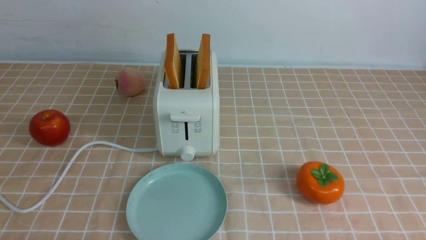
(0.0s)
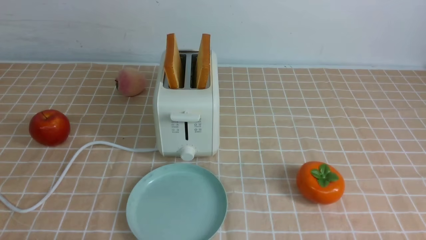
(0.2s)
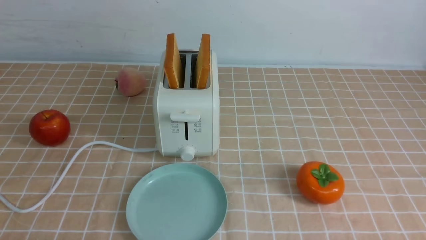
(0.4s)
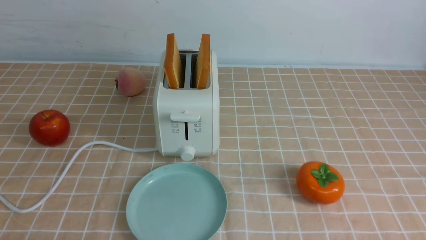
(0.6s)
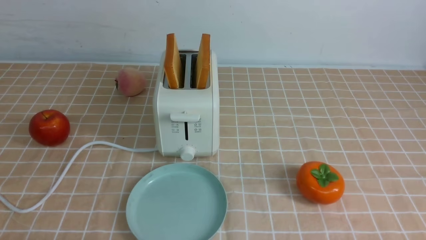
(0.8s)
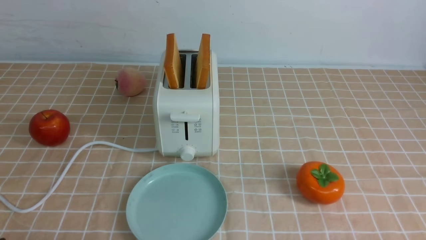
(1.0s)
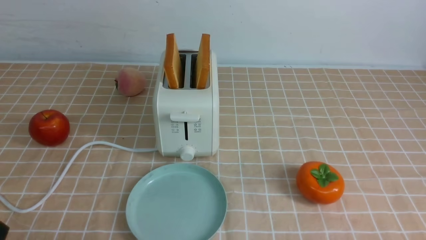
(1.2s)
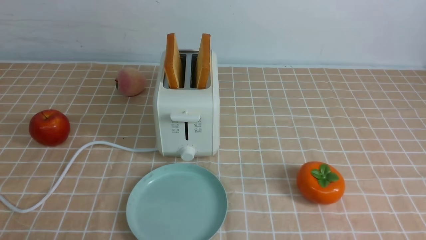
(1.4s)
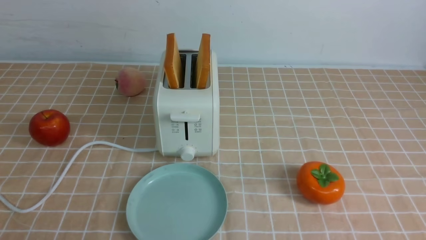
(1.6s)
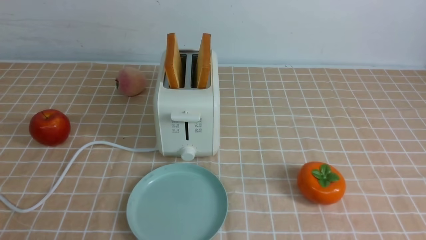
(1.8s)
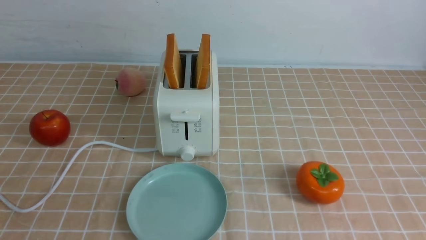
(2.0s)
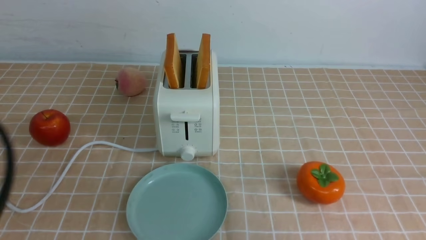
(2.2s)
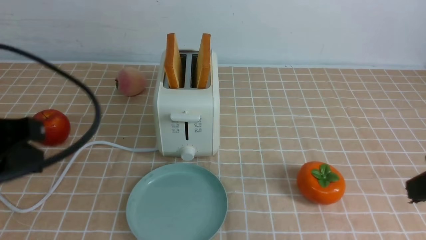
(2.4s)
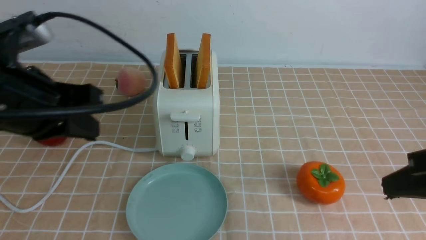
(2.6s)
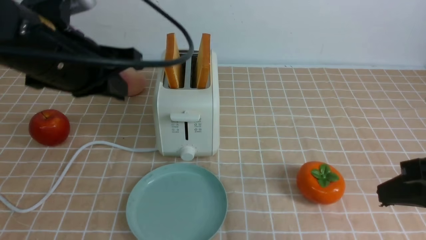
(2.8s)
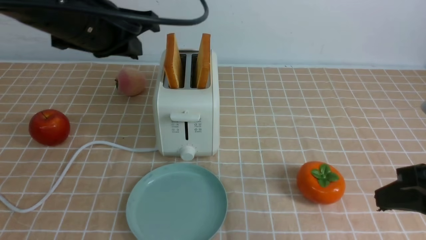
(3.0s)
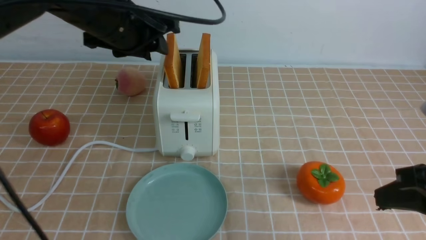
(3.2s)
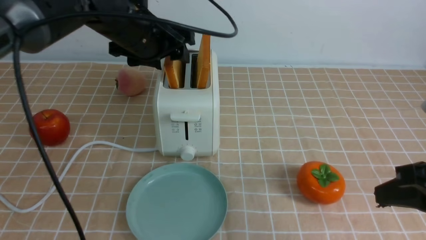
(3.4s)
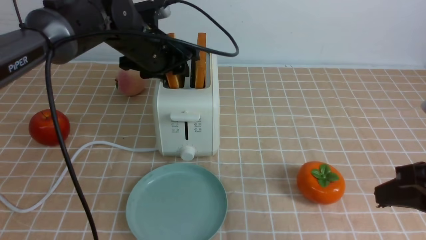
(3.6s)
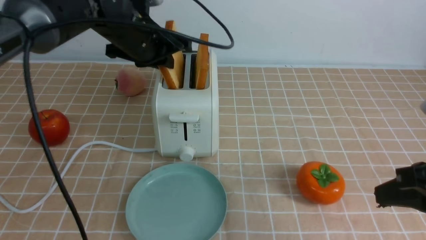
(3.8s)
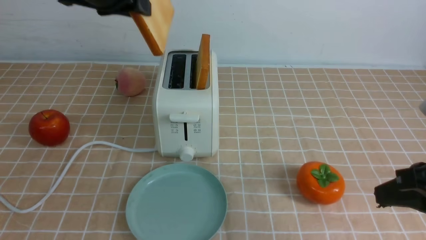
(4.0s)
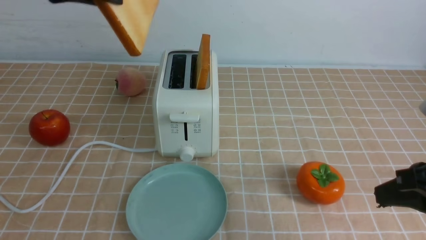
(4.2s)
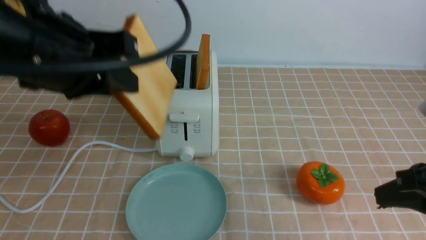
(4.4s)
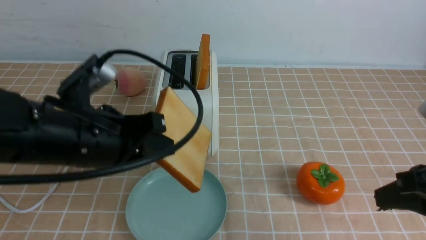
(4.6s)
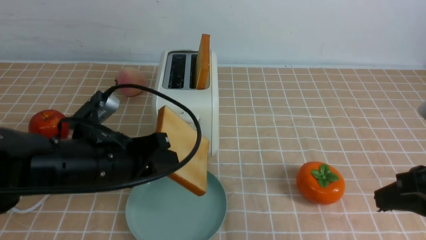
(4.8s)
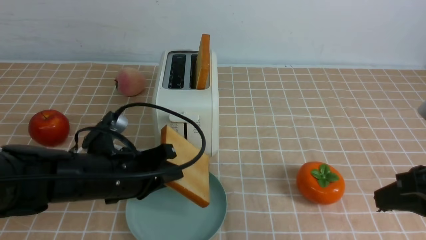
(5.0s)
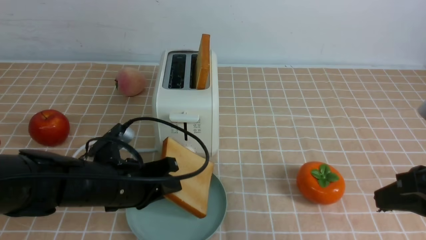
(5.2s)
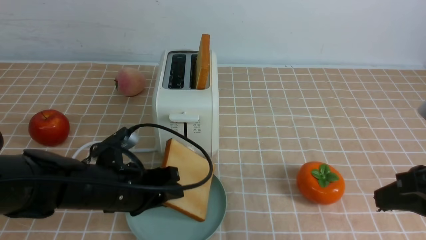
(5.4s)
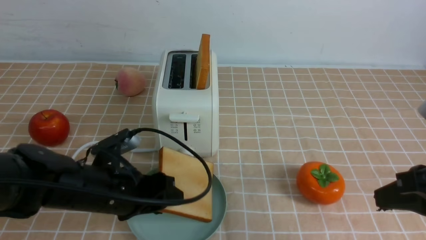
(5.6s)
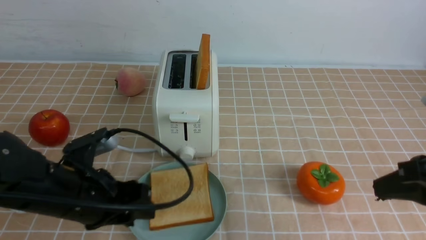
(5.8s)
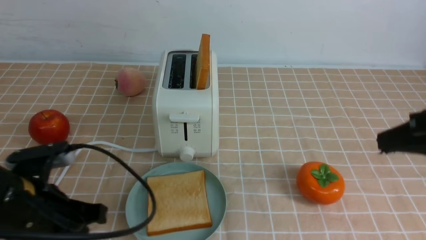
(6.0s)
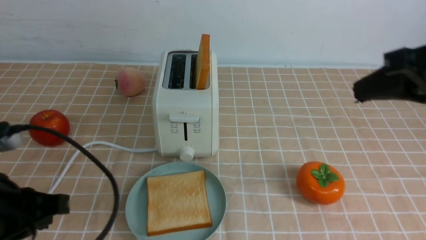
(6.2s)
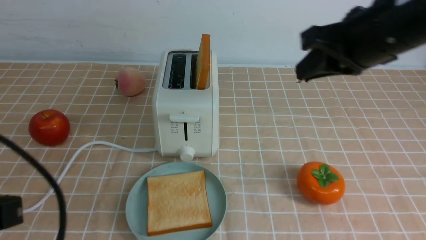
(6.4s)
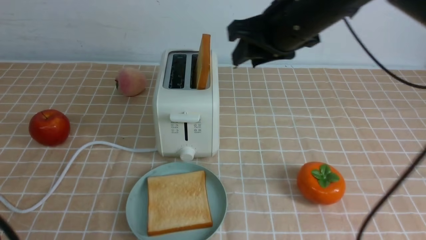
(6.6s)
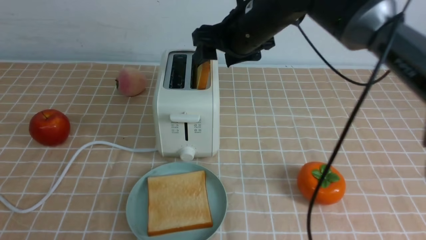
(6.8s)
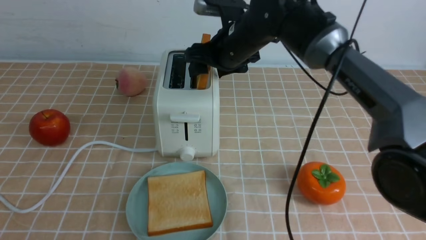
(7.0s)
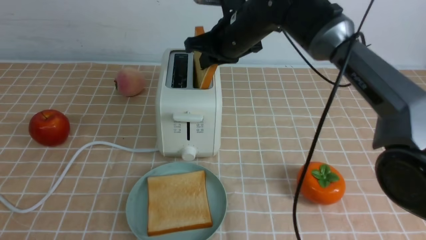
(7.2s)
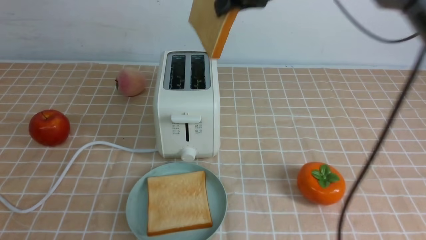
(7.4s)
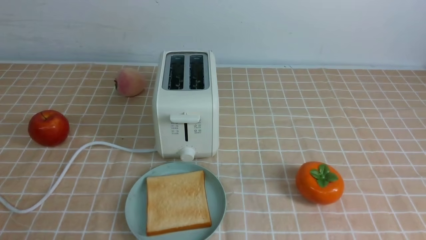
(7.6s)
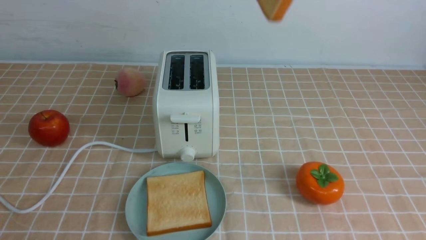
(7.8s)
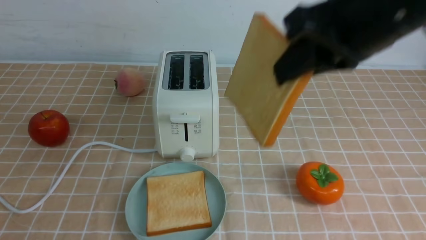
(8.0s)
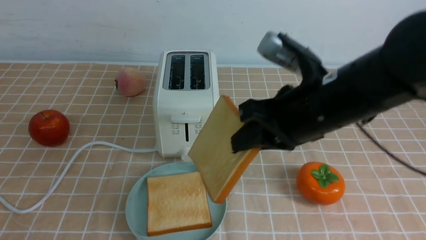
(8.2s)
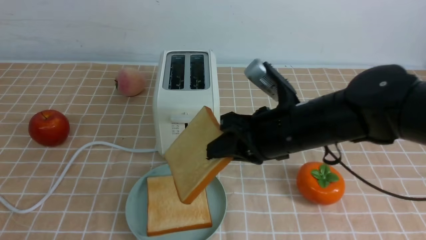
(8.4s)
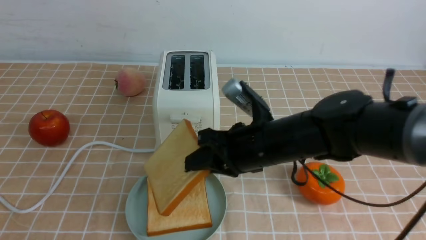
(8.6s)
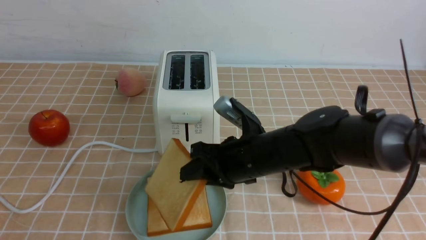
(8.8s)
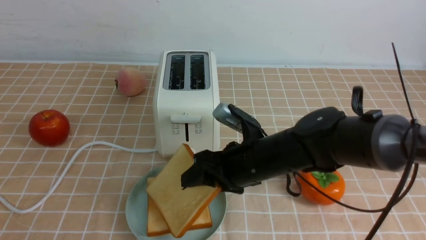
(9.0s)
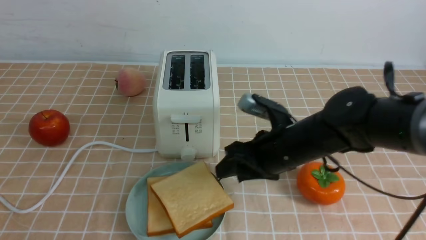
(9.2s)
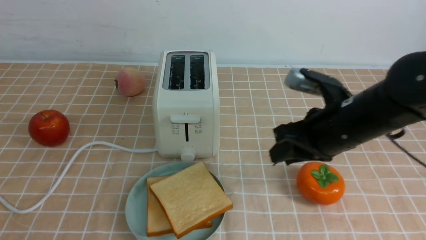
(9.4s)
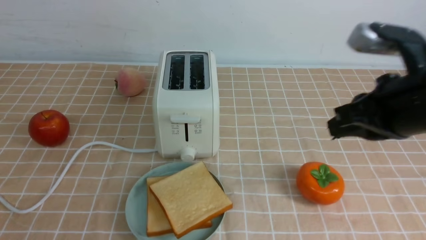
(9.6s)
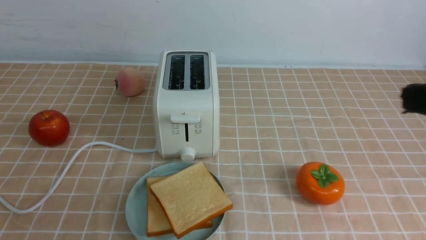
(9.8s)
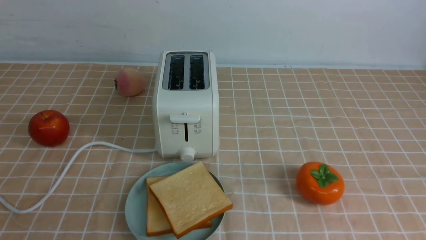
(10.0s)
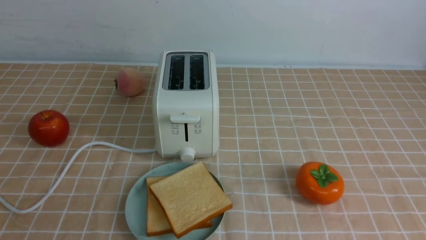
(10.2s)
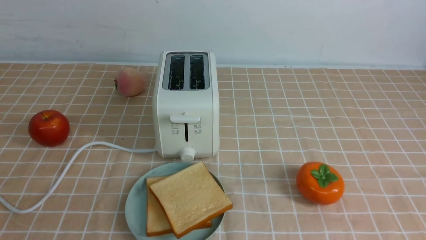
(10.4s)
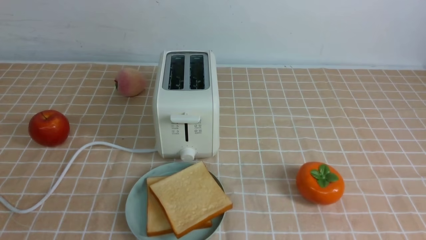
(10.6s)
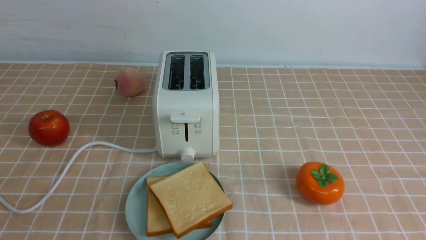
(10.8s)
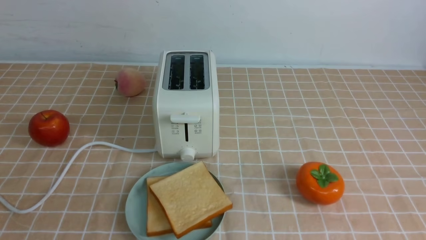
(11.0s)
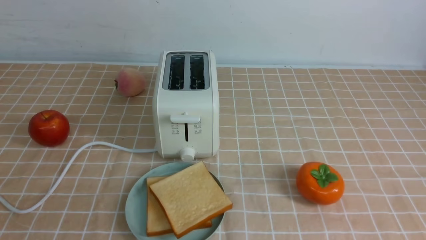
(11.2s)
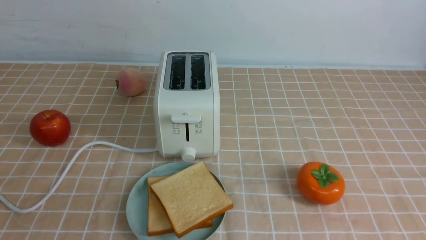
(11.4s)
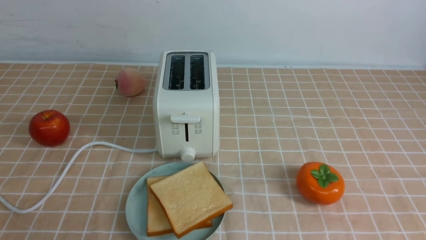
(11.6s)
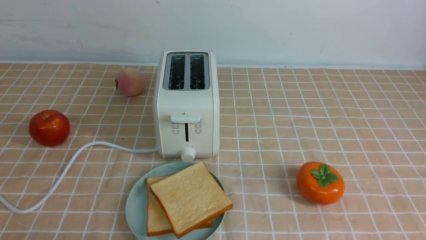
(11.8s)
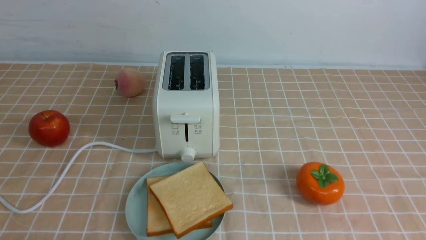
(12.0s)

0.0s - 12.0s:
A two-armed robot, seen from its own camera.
Task of the whole recording: take toasted bread from bread machine on light coffee tablecloth place on plate.
Step, 0.0s - 3.8s: use the left arm to take out a slice of bread.
Step, 4.0s - 5.8s: use the left arm to put a slice of bread into the empty plate.
Step, 6.0s - 7.2s: use the right arm to take out a slice of bread.
Step, 7.4s - 9.2s: use the right arm to put a slice of bread into the plate.
1.6s - 3.0s: The left gripper moves forward, upward and to the right, some 30 cm, and closes, while the right gripper goes roughly 15 cm forward, upward and to the left, and closes.
3.0s - 4.4s: The left gripper moves some 10 cm forward and comes back, and opens and closes again.
4.4s - 6.0s: The left gripper shifts roughly 20 cm downward, and opens up.
6.0s - 7.6s: The right gripper heads forward, to the left and upward, covering roughly 25 cm, and opens and closes again, while the left gripper shifts roughly 20 cm backward and upward, and closes.
7.6s - 9.0s: The right gripper shifts roughly 30 cm downward, and opens up.
9.0s - 10.4s: The right gripper goes about 35 cm backward, to the right and upward, and closes up.

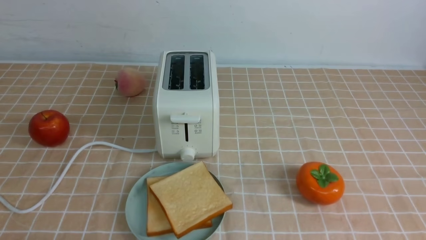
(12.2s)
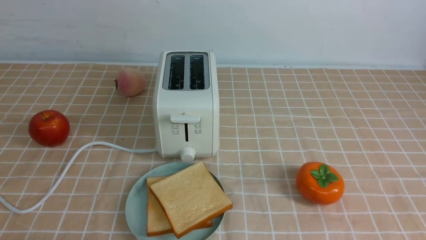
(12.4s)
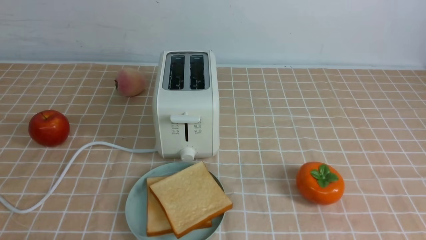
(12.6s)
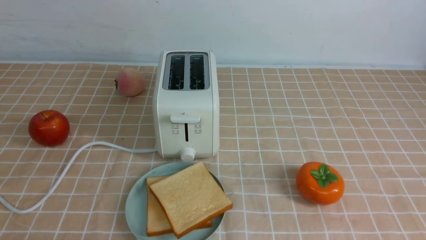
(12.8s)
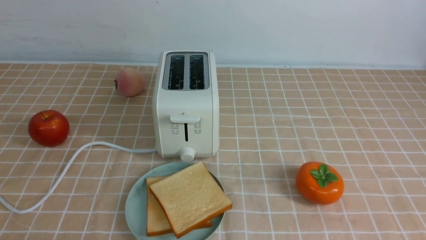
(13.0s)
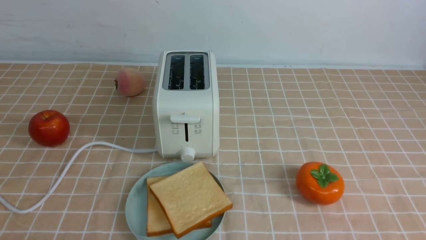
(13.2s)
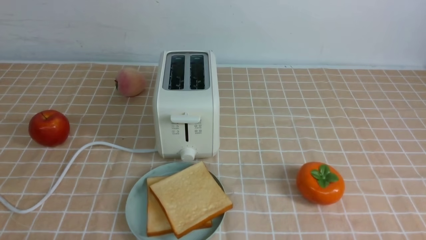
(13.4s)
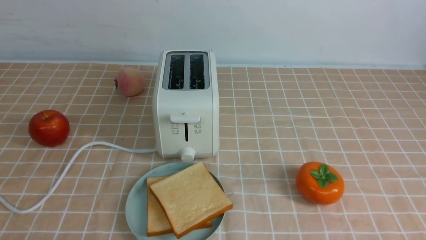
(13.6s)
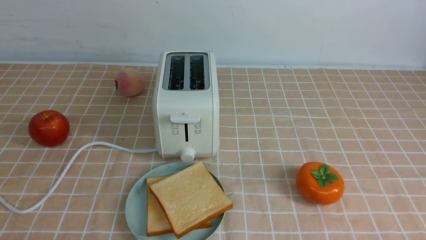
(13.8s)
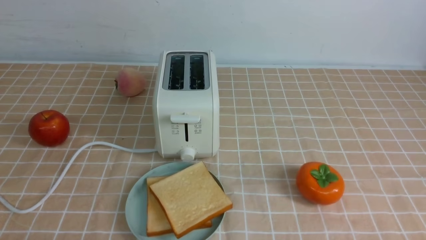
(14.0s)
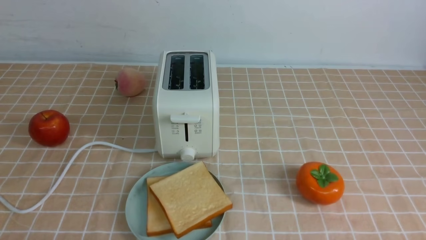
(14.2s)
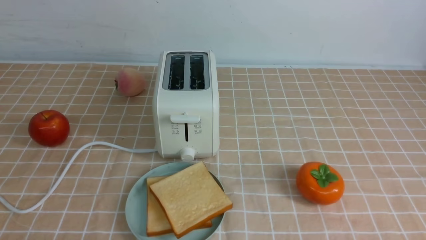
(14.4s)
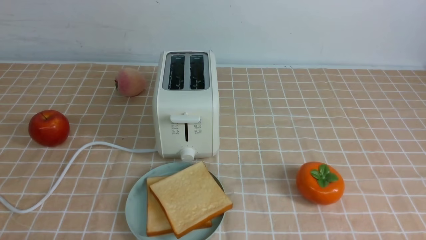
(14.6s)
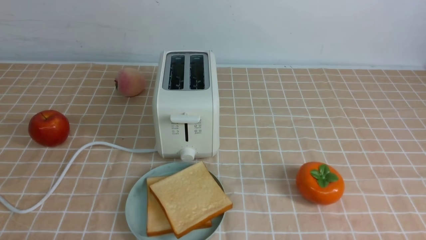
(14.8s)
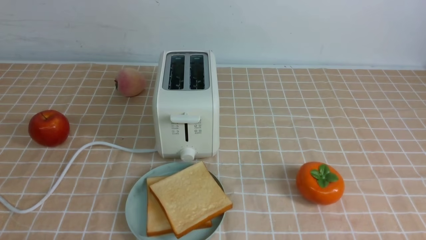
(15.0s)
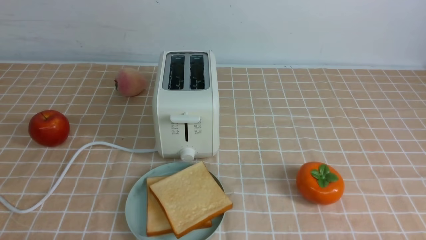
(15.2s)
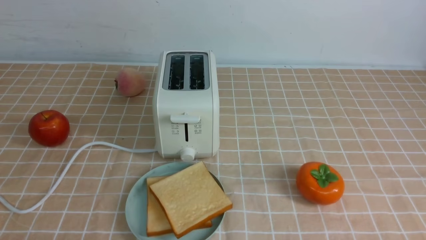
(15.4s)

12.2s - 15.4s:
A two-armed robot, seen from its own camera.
Task of the whole recording: take toasted bread from bread machine on light coffee tablecloth place on plate.
13.8s - 15.4s: The two grippers keep their place.

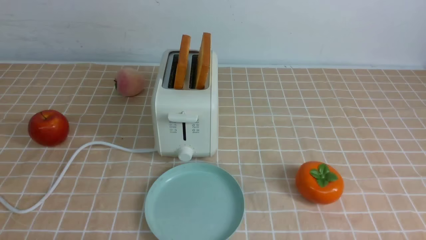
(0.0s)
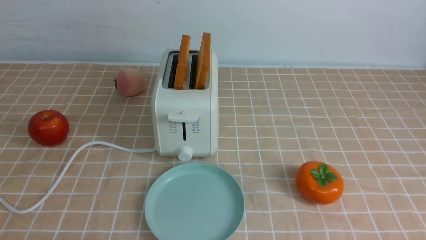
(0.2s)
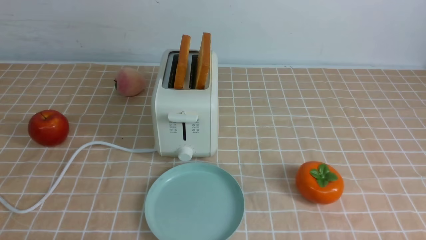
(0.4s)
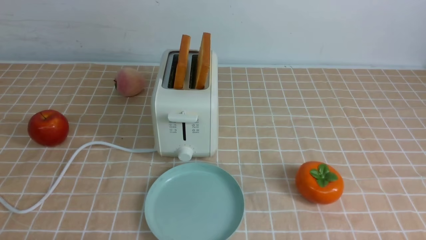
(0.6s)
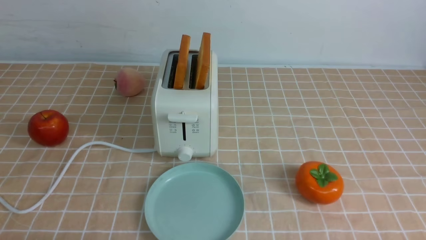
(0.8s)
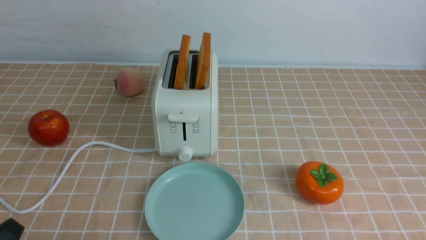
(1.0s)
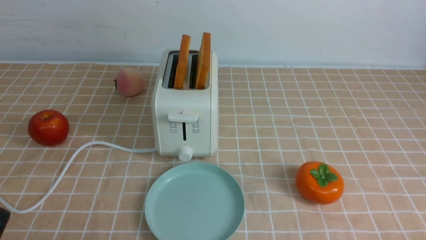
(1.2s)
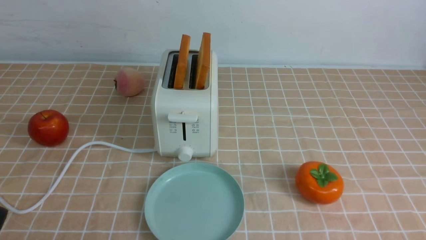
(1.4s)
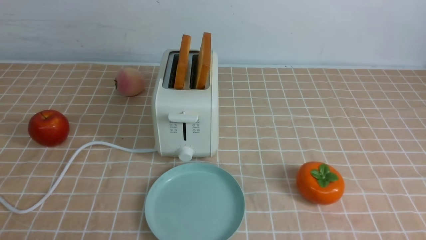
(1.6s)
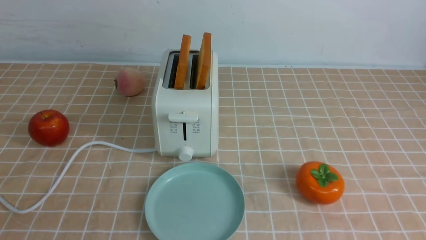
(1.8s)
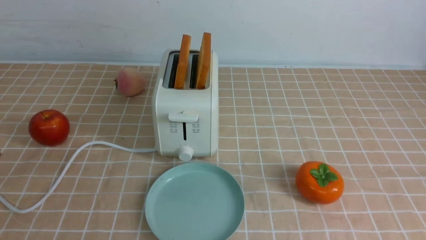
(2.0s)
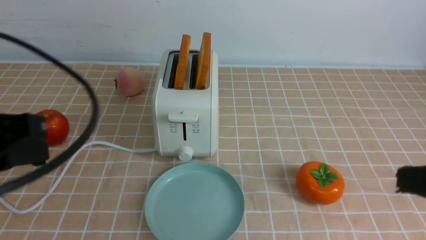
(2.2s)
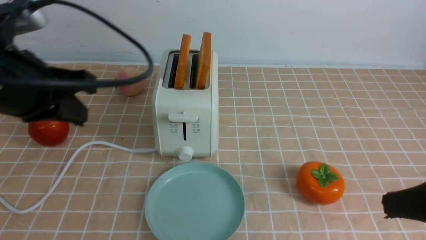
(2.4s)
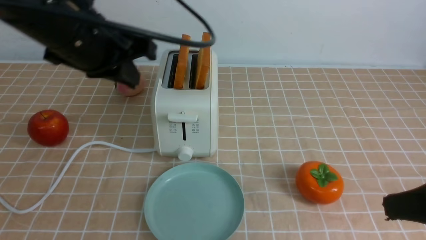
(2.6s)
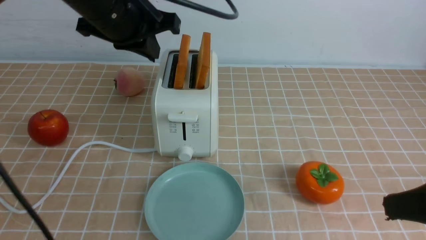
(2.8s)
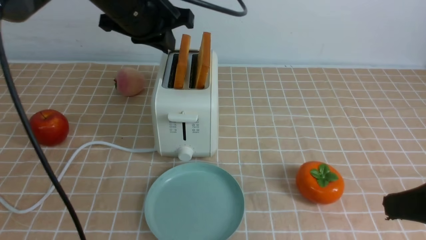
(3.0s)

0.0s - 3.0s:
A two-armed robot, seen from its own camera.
Task of the whole recording: take toasted bread from bread machine on light coffee tablecloth place on plate.
1.6s - 3.0s: The right gripper shifts roughly 15 cm upward and forward, and closes; the left gripper is displaced forward and to the right by approximately 40 cm.
